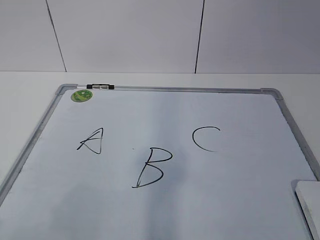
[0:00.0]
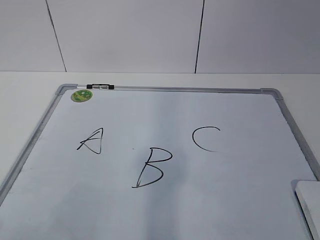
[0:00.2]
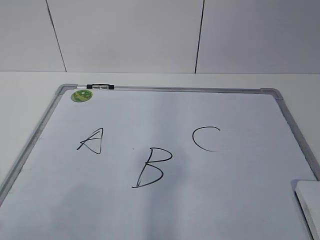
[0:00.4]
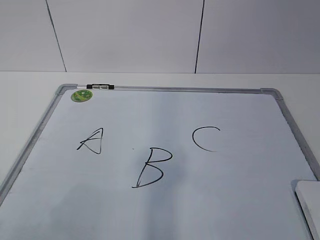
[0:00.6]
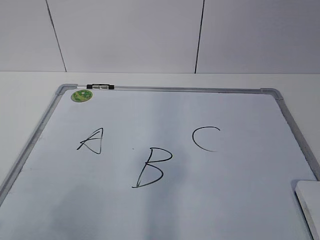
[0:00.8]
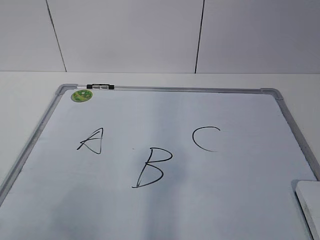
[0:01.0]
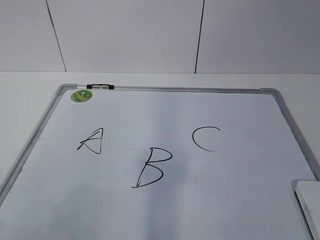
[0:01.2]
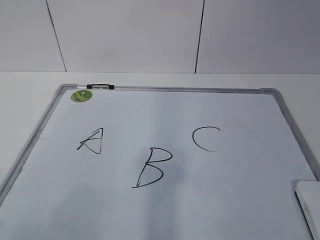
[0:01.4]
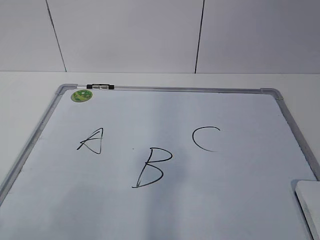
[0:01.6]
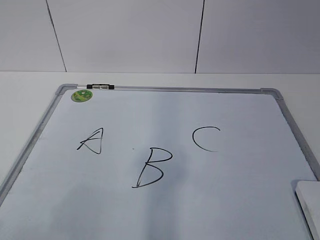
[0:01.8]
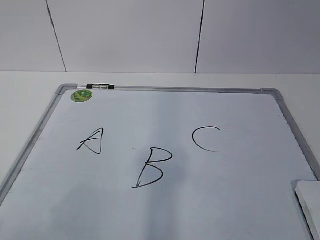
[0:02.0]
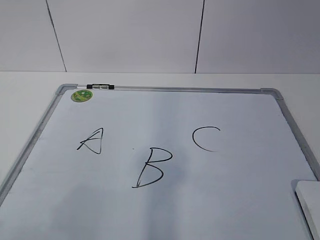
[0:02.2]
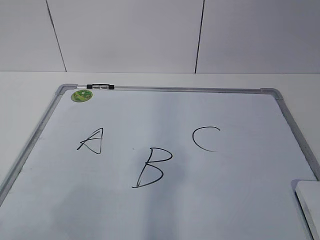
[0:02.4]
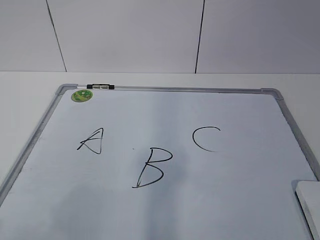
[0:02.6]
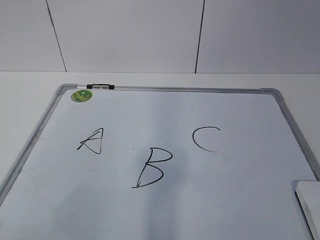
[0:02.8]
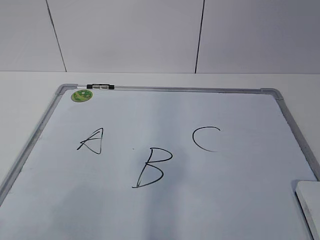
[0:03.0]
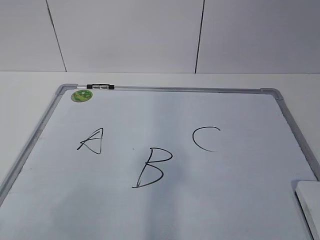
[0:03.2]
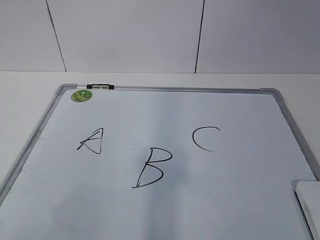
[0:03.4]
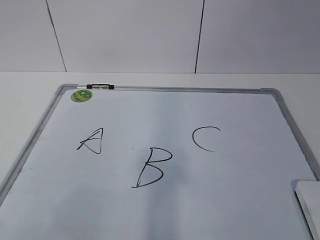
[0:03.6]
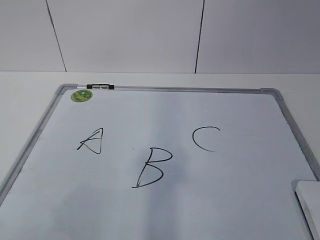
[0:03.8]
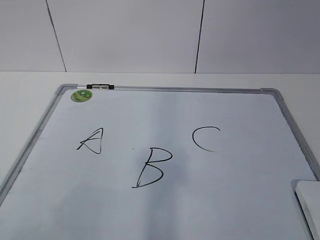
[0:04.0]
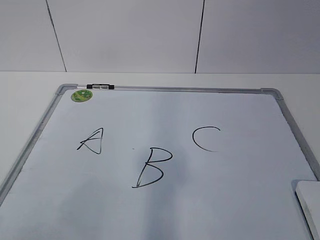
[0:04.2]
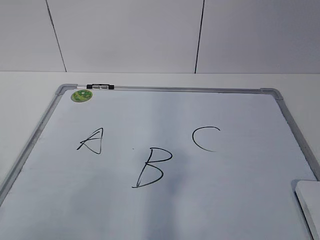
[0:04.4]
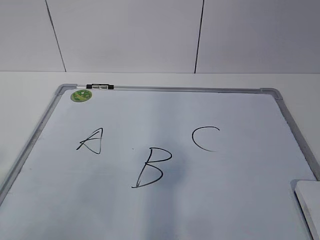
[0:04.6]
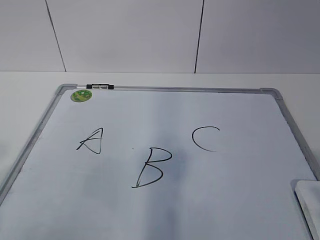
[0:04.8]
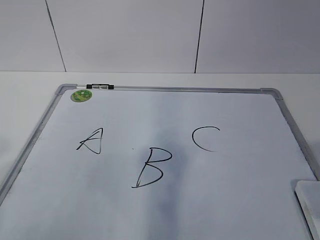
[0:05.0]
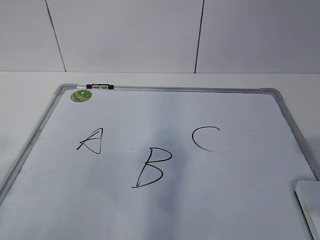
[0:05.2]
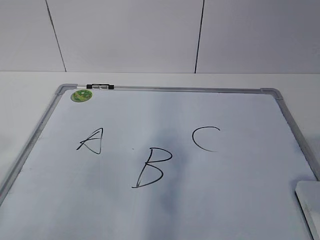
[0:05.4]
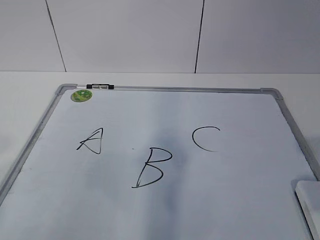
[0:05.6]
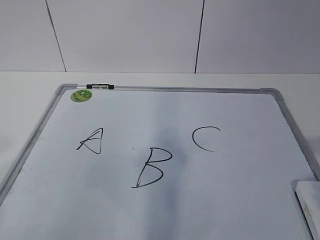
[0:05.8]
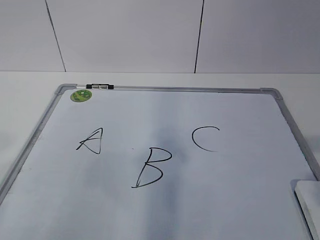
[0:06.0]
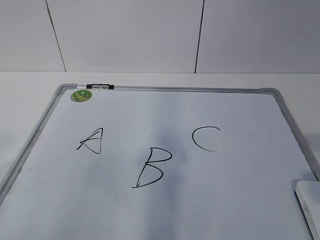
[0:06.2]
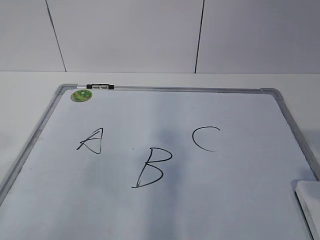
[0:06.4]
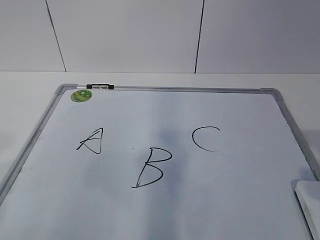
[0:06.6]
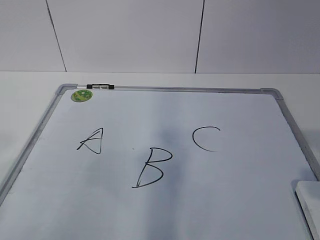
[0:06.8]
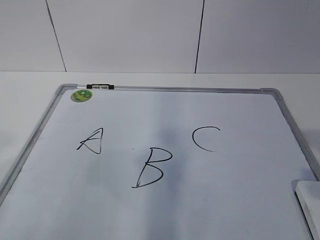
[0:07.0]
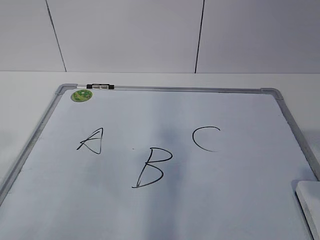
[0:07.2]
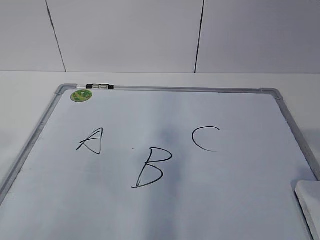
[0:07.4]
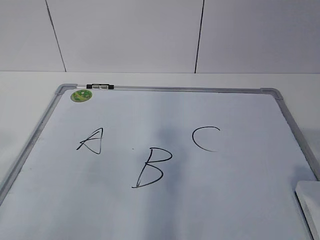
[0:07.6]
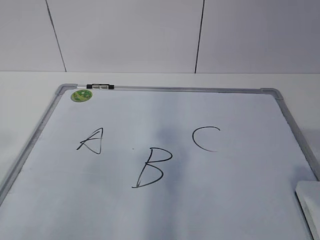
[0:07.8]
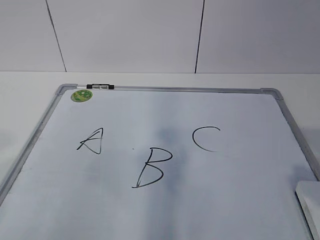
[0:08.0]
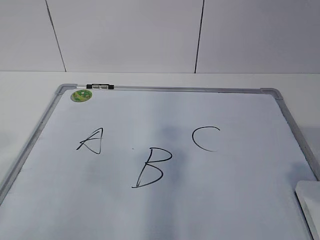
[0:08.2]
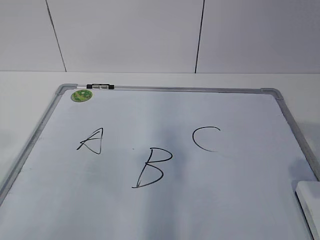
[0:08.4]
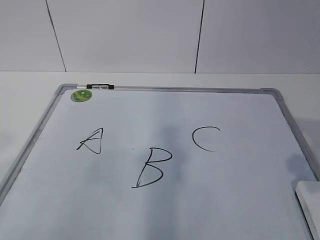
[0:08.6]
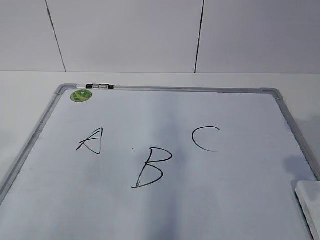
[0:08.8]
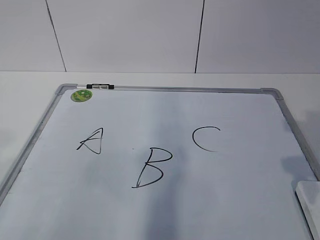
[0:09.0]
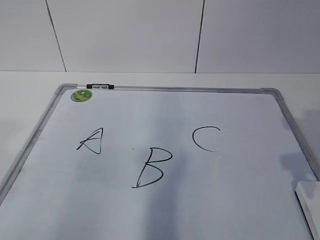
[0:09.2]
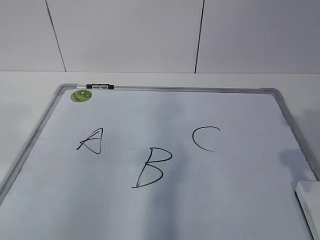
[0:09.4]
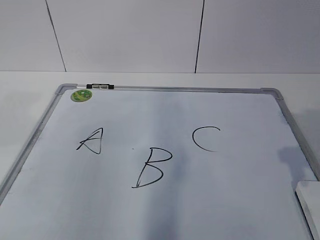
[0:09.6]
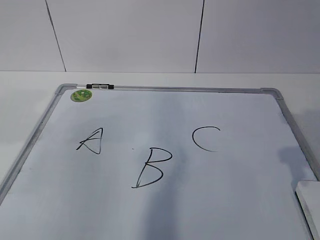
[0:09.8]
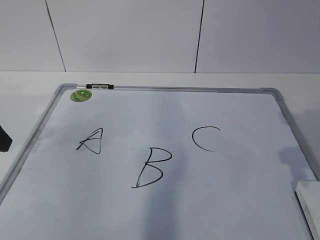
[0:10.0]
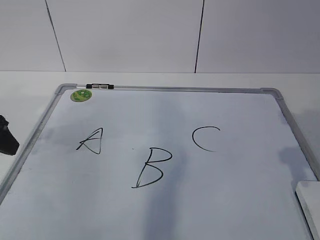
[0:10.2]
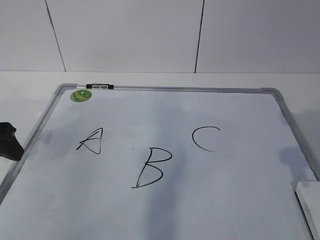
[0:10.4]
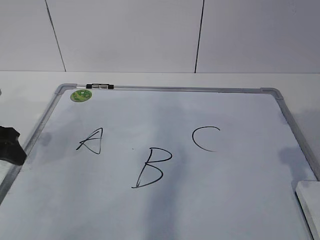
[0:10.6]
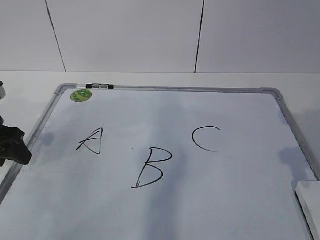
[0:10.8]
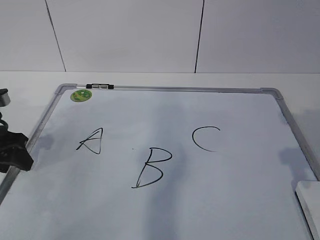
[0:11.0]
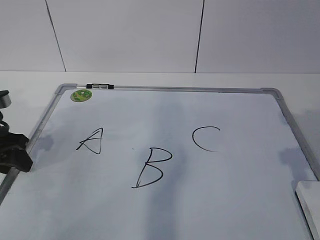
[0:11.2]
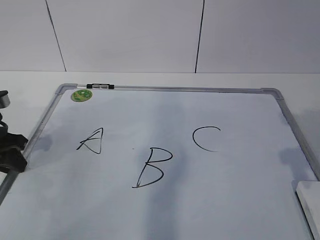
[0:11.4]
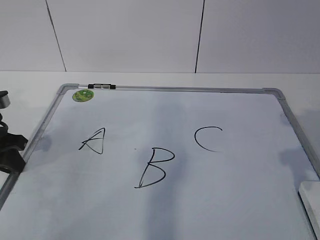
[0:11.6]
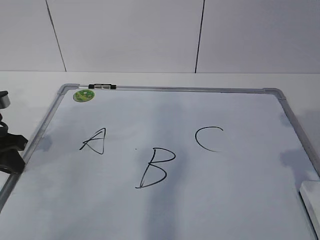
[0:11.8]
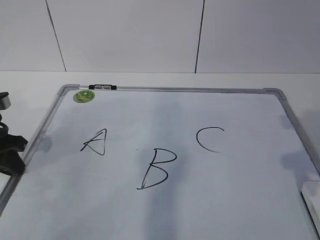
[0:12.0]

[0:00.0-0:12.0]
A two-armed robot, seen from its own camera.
Task of the whole recording: pick up the eraser on the blackboard and erase the letter "B".
0:01.6 to 0:03.0: The two grippers keep their place.
0:09.0 to 0:10.4: The left gripper moves forward and downward, some 30 cm.
0:10.4 to 0:12.0: The left gripper closes.

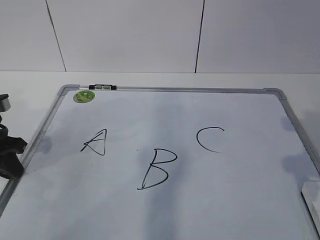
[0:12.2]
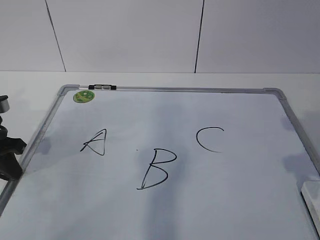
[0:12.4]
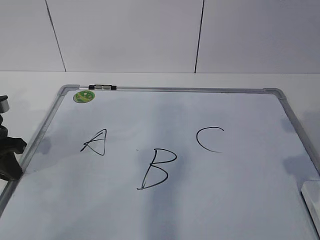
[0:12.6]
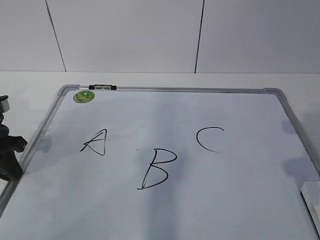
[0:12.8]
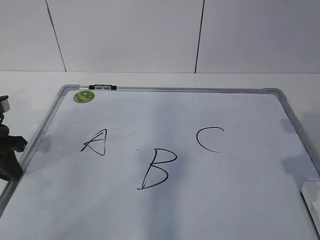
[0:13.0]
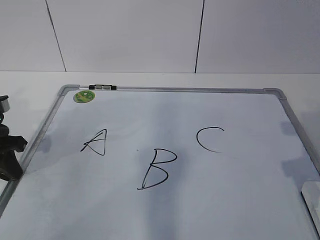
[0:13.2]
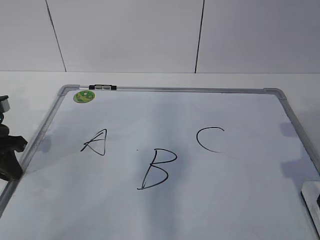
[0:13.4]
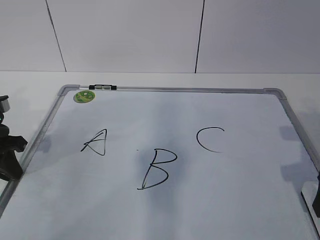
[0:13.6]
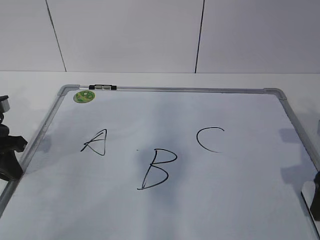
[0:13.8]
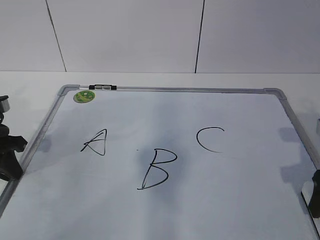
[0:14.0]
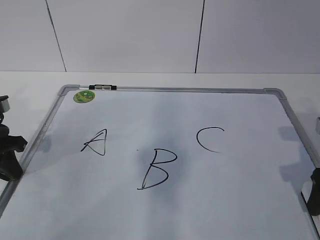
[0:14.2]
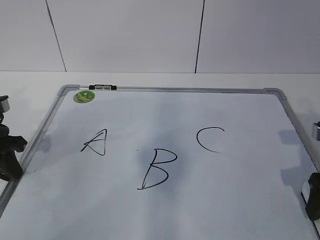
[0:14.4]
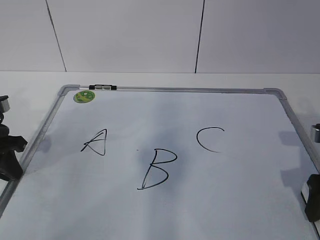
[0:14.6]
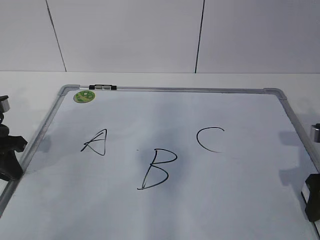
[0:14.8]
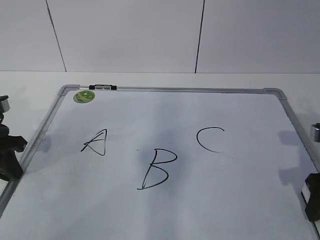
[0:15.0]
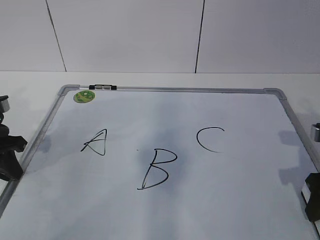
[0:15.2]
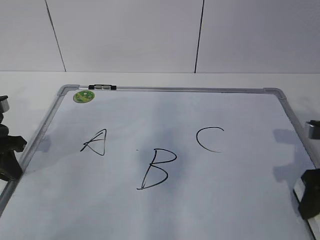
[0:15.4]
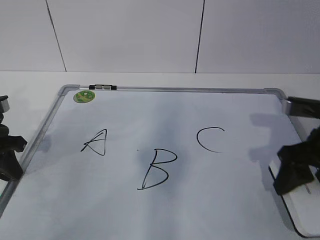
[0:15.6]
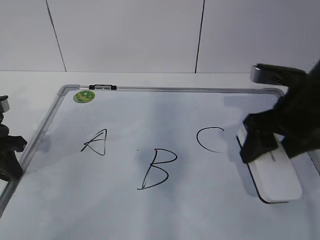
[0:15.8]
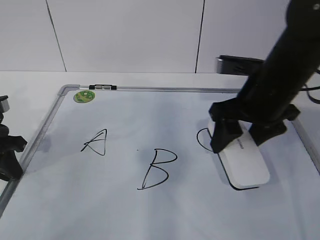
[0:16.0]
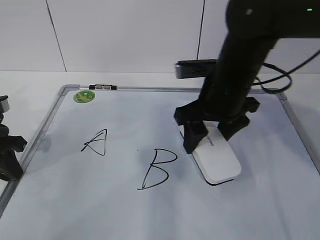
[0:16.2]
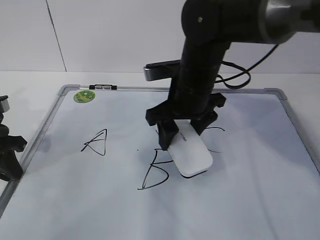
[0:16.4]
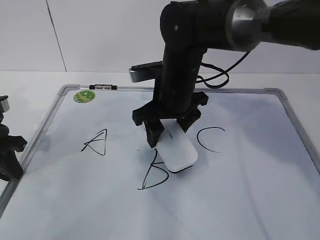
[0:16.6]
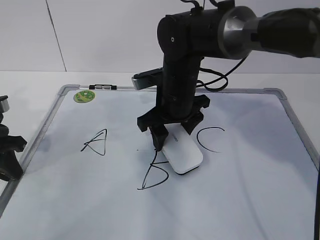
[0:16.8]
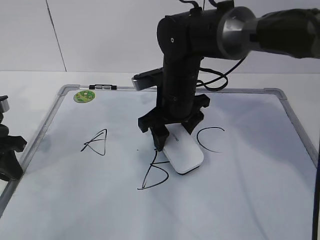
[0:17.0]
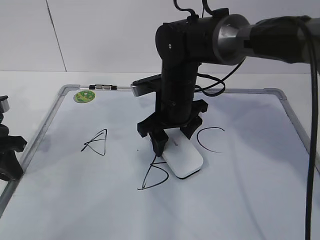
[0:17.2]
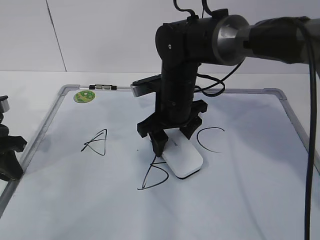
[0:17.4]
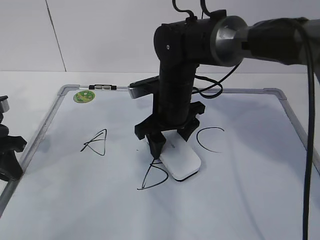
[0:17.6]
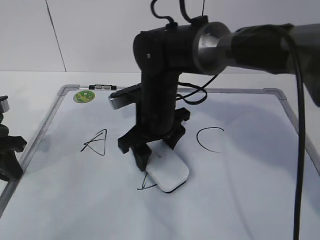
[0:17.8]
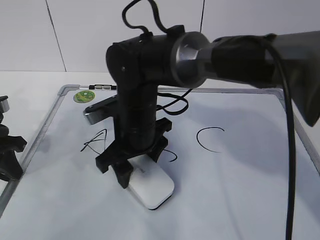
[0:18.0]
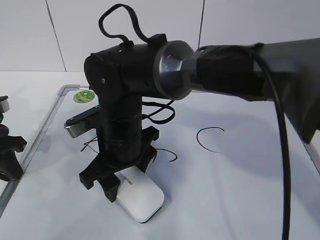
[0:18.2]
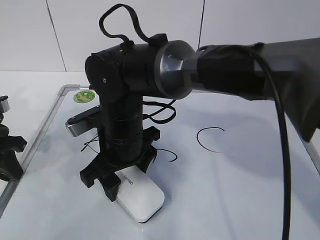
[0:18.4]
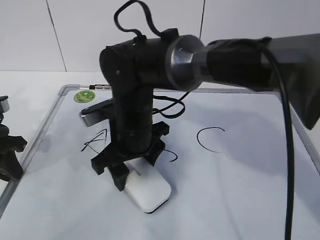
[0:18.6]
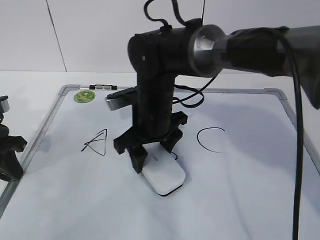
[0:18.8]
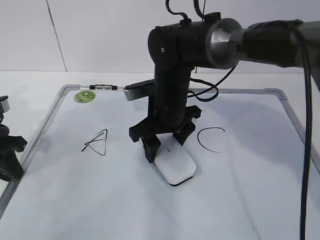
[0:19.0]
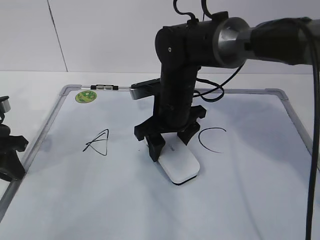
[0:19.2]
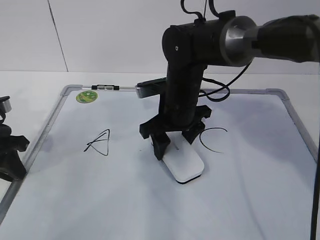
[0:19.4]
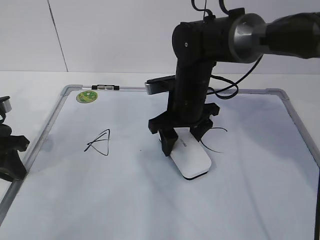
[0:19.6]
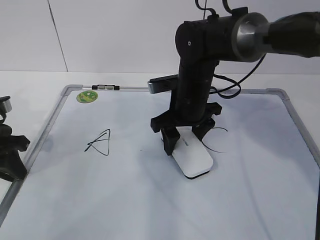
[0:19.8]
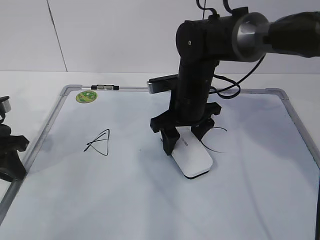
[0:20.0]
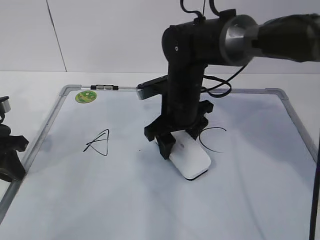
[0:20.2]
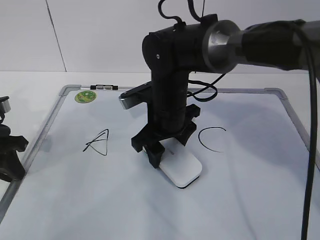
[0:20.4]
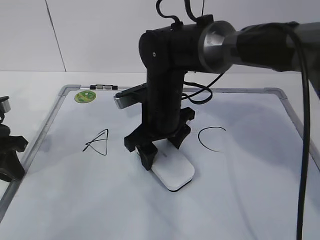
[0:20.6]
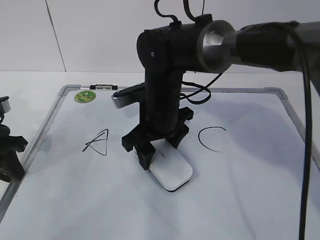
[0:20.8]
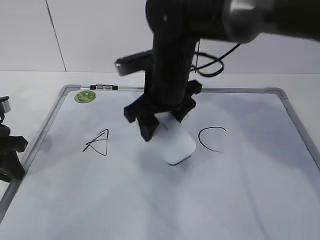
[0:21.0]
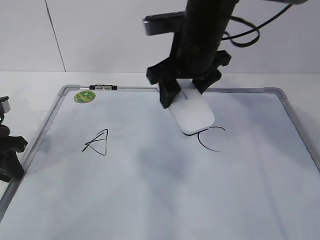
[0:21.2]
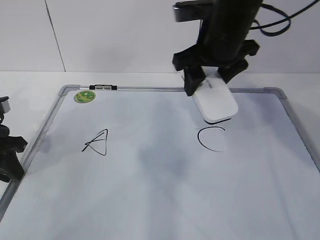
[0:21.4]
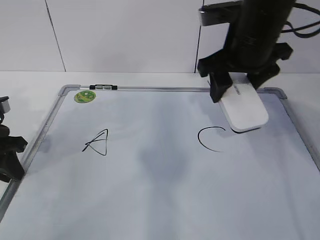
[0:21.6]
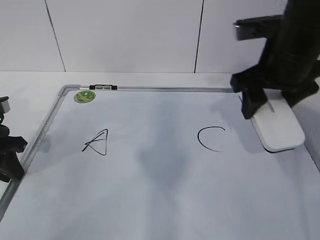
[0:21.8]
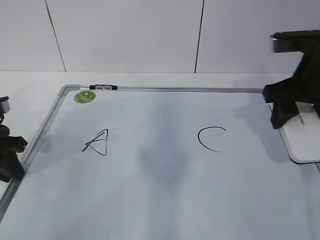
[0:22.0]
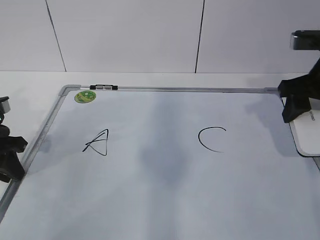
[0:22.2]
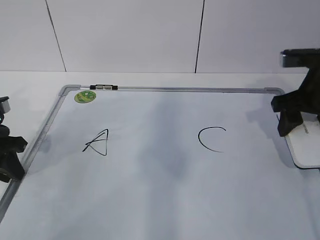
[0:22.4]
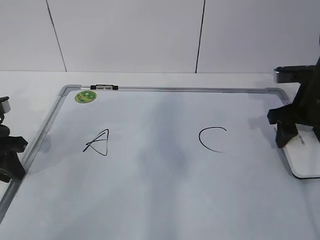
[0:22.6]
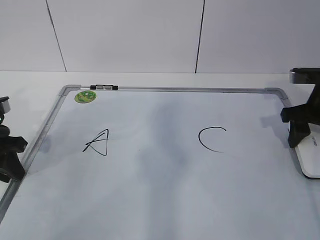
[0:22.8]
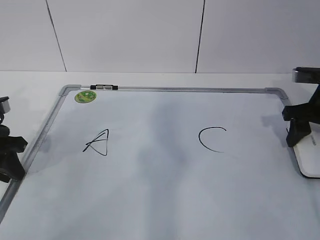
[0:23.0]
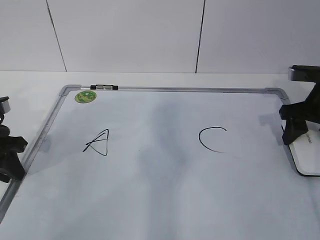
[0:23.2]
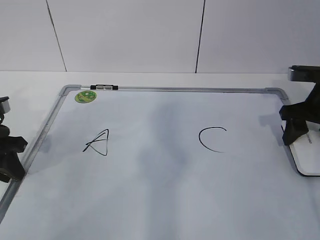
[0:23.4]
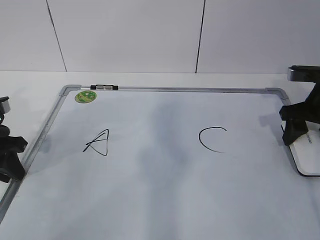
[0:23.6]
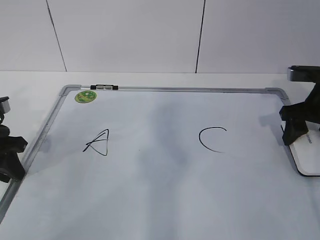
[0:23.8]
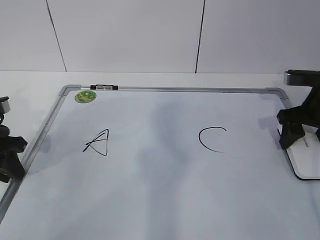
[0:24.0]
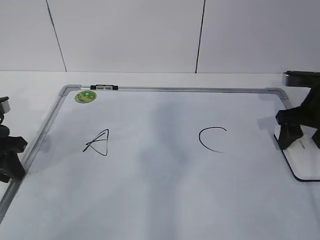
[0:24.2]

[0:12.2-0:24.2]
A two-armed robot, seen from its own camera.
Task of the whole recording: pick up the eraser on the blackboard and erase the letter "B".
Step, 0:12.2 to 0:17.2: Erase the letter B with your right hand.
Step, 0:17.4 to 0:20.2: Put down the eraser with your right hand.
0:12.2 to 0:13.8: The right gripper heads downward, covering about 5 cm.
0:15.2 to 0:16.6: The right gripper is displaced to the left and forward by some 30 cm.
0:16.6 to 0:18.2: The right gripper goes roughly 10 cm to the left and backward.
0:18.2 to 0:19.8: The right gripper heads to the right and forward, covering some 15 cm.
0:19.8 to 0:21.2: The right gripper is displaced upward by roughly 10 cm.
0:21.2 to 0:22.6: The right gripper is displaced to the right by about 20 cm.
0:22.6 to 0:24.2: The right gripper opens.
